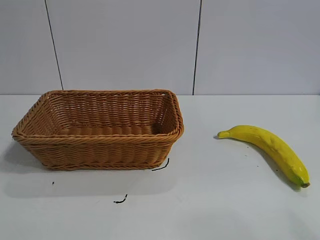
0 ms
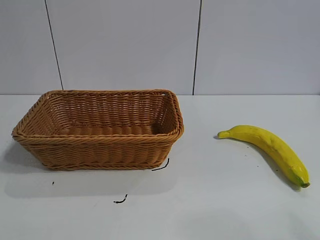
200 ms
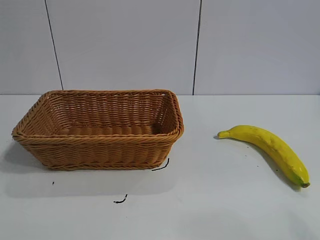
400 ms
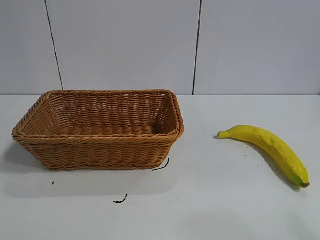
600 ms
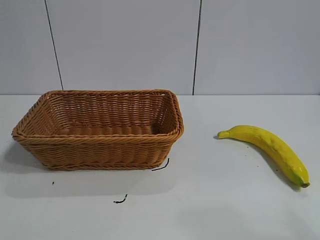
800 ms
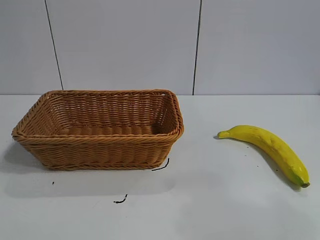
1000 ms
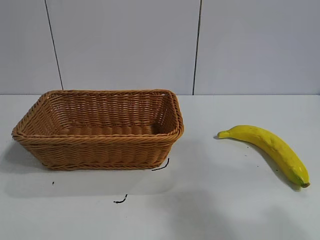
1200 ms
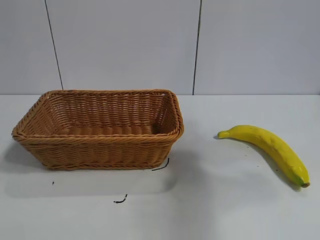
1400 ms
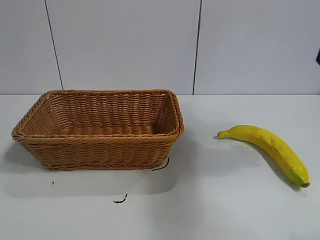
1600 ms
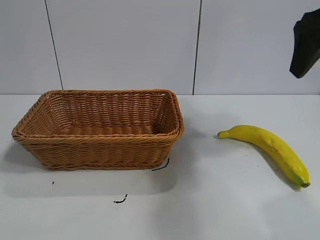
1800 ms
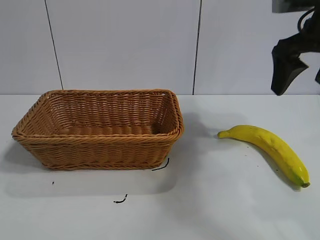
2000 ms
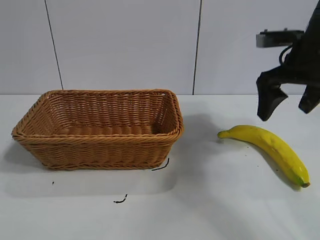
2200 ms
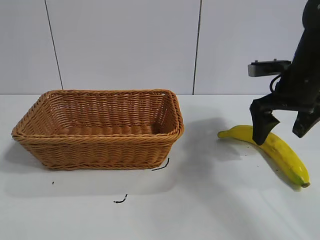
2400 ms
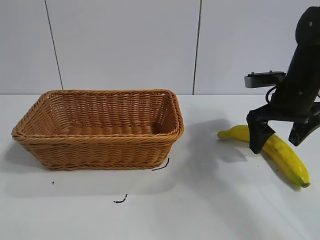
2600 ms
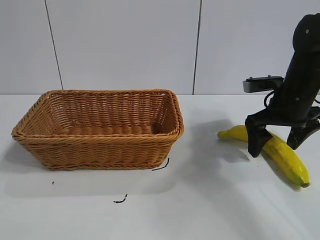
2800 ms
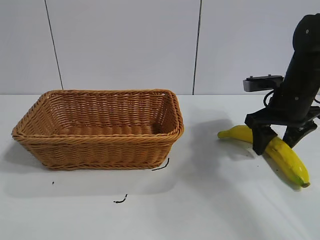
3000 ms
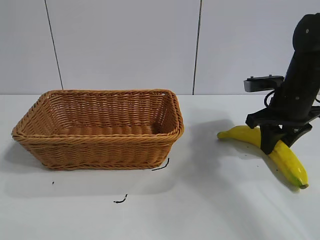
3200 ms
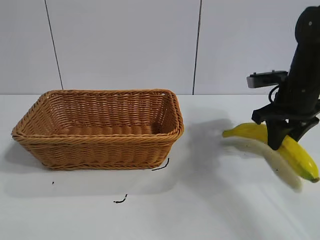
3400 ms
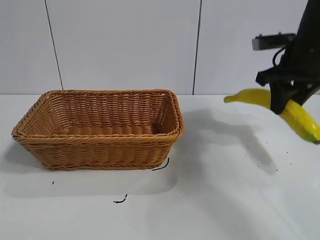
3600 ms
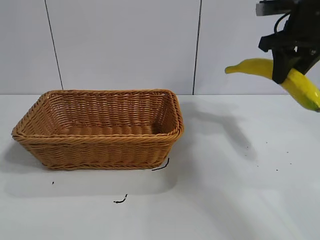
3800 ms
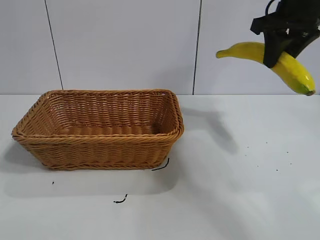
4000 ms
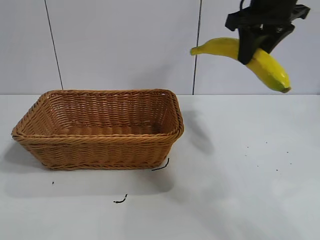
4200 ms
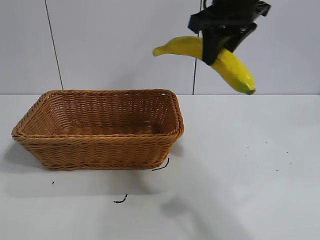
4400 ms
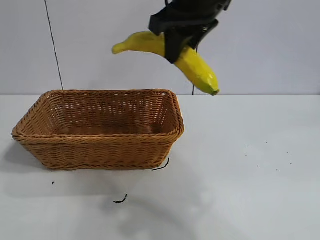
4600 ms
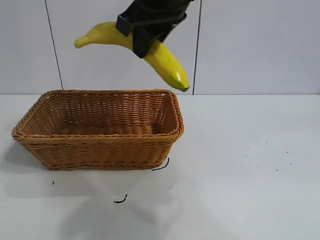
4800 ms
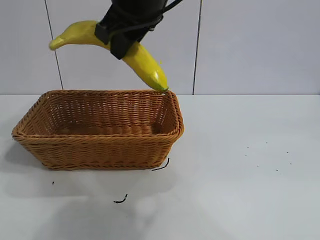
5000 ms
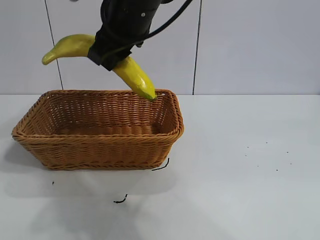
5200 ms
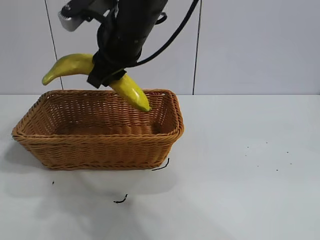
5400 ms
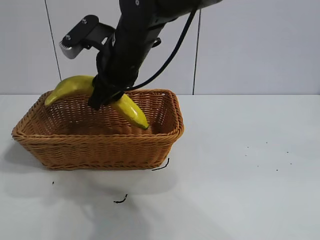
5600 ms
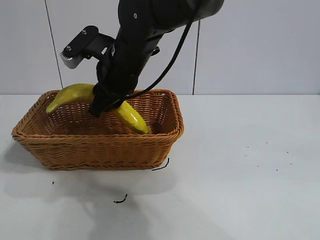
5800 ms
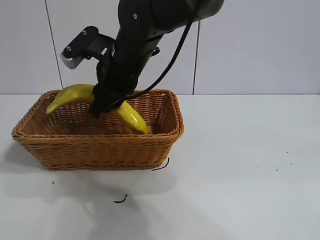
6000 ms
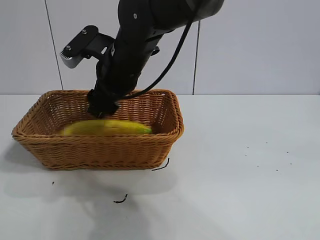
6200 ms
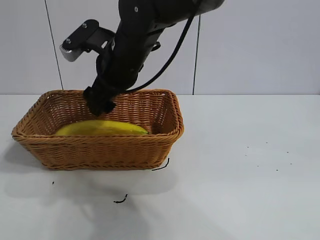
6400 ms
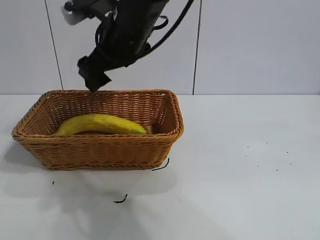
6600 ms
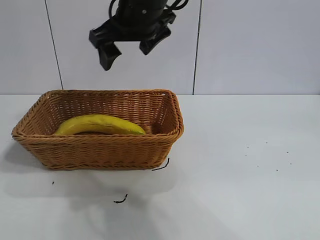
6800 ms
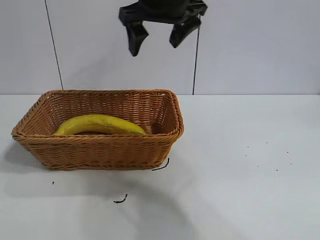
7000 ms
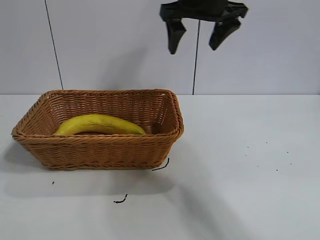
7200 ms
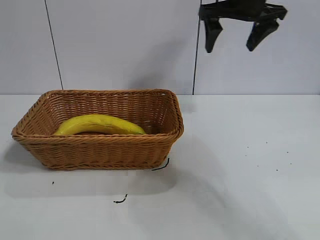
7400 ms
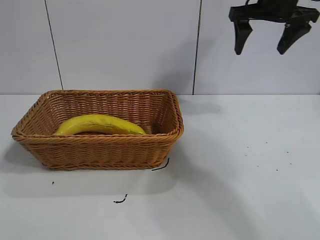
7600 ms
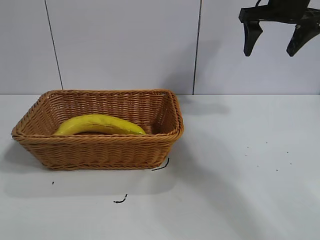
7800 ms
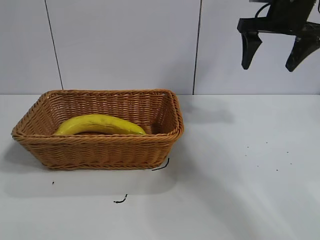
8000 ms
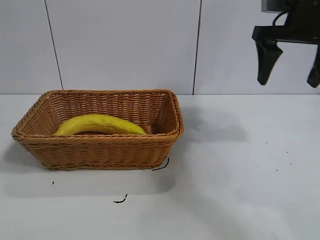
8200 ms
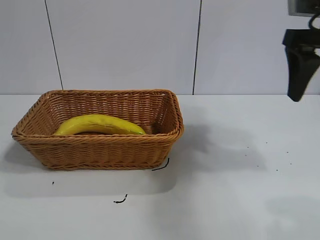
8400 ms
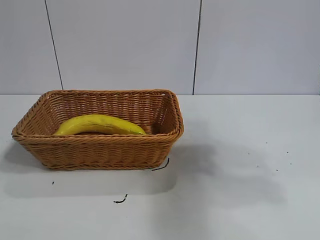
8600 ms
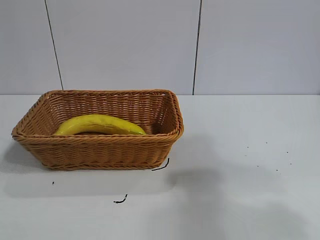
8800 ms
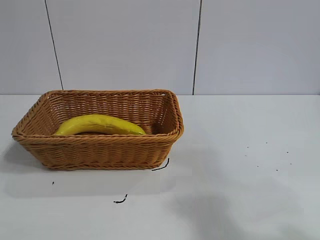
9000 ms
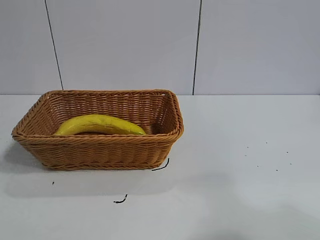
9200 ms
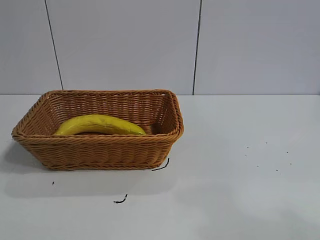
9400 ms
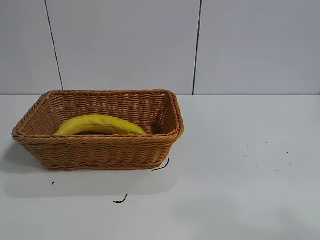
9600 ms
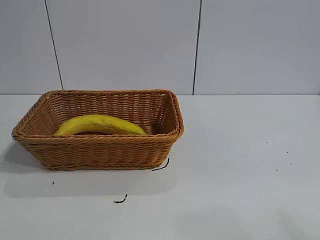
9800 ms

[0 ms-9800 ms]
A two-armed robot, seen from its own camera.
Task of the whole recording: pick up the banana and put it into the basket.
Step, 1600 ms to 3400 ms: Grasp the banana with right gripper.
Step, 3600 ms to 6200 ms: Place the banana in the basket with right gripper.
